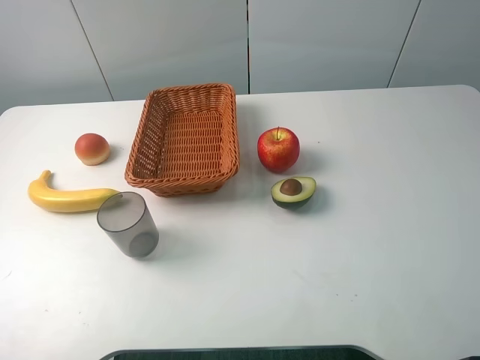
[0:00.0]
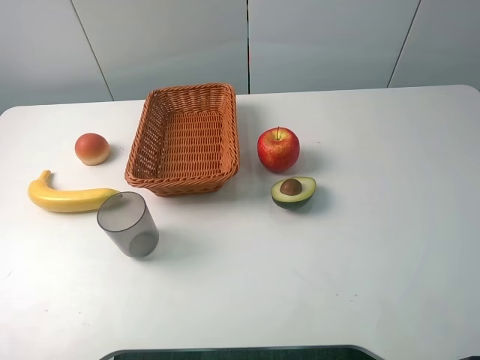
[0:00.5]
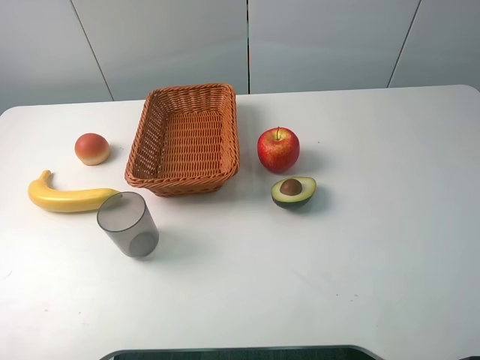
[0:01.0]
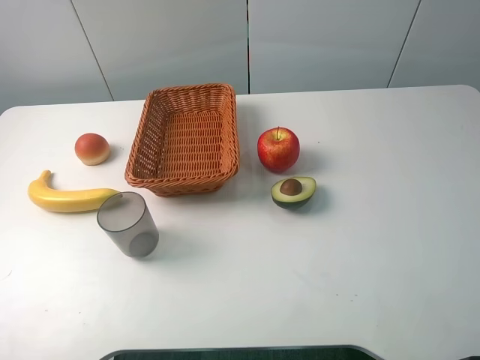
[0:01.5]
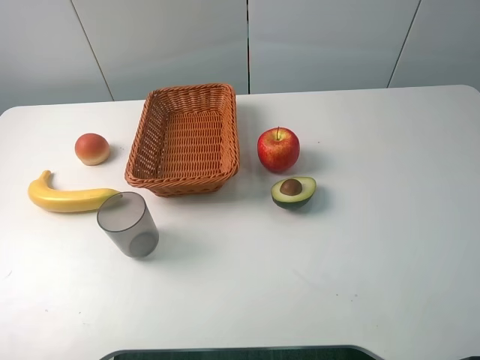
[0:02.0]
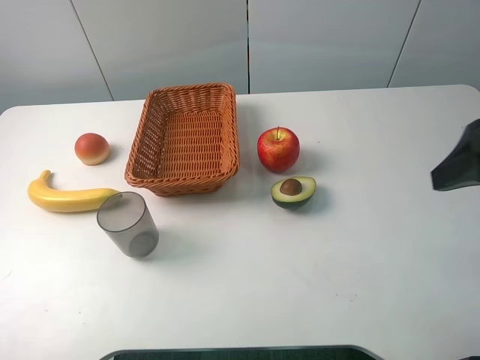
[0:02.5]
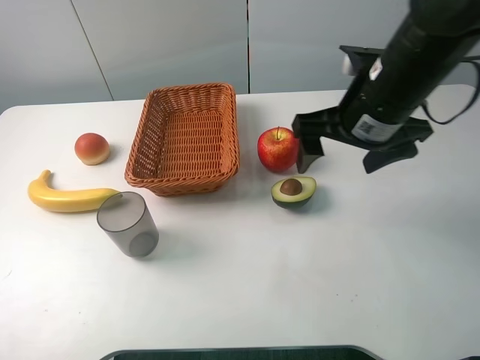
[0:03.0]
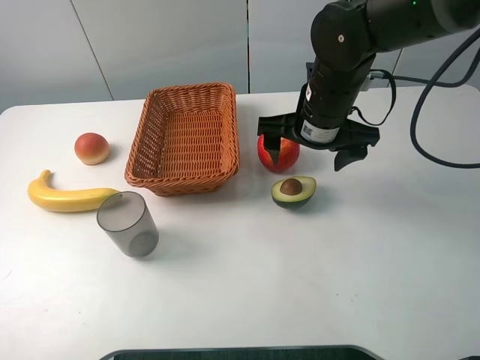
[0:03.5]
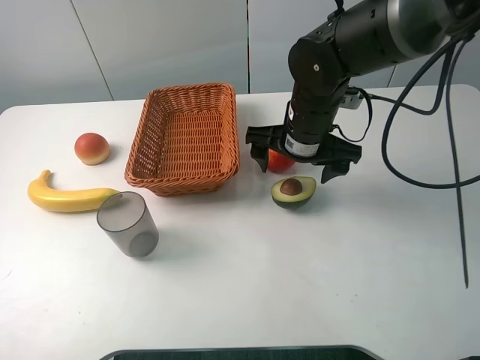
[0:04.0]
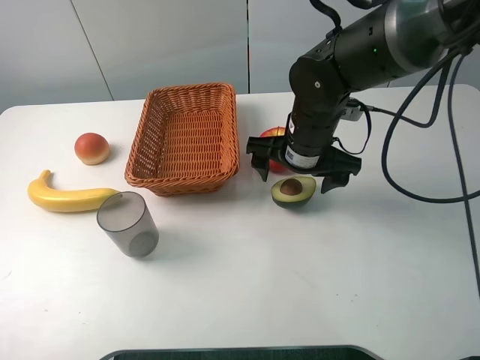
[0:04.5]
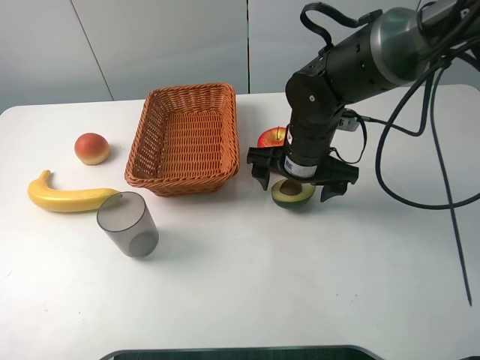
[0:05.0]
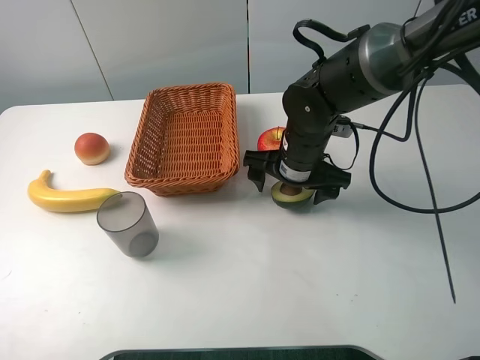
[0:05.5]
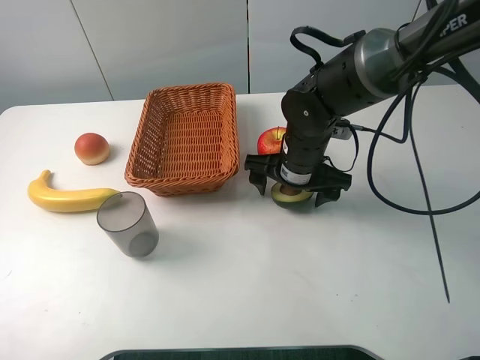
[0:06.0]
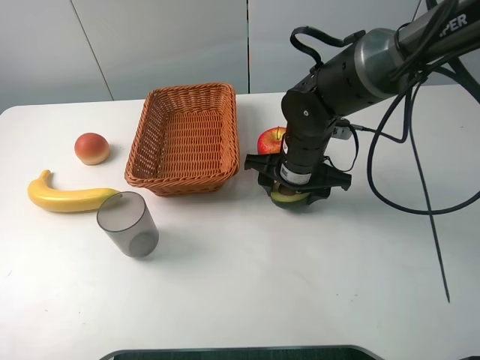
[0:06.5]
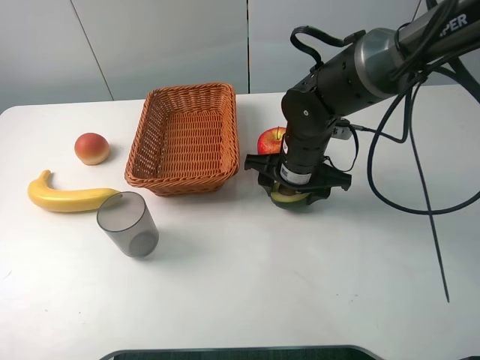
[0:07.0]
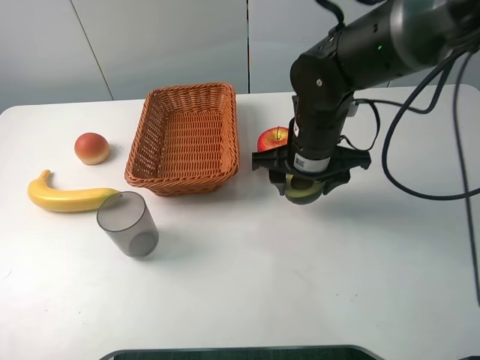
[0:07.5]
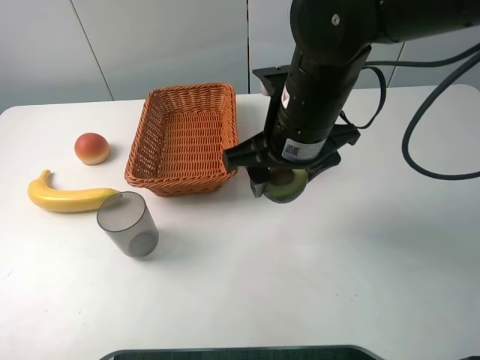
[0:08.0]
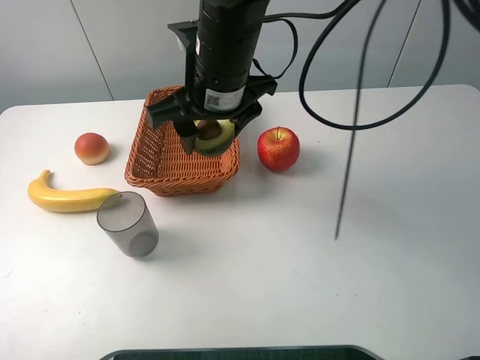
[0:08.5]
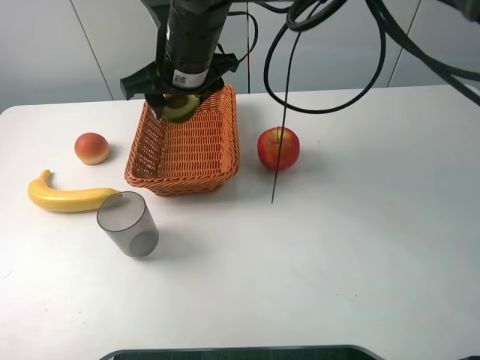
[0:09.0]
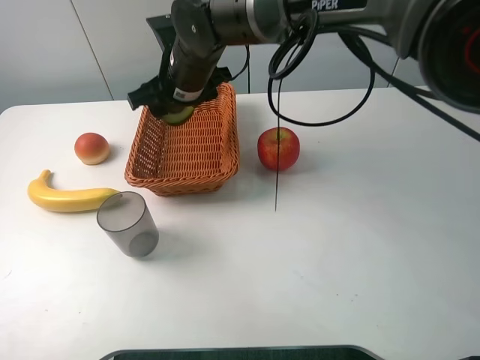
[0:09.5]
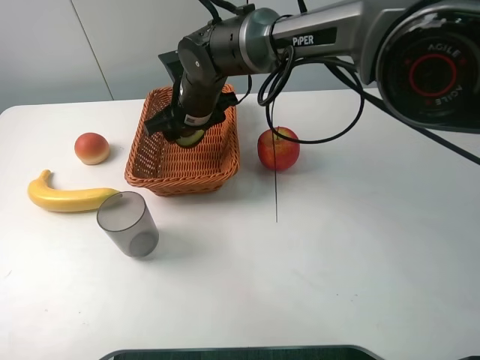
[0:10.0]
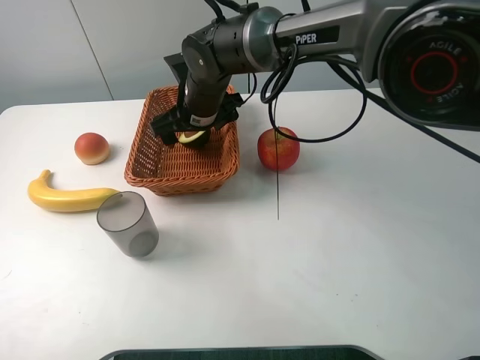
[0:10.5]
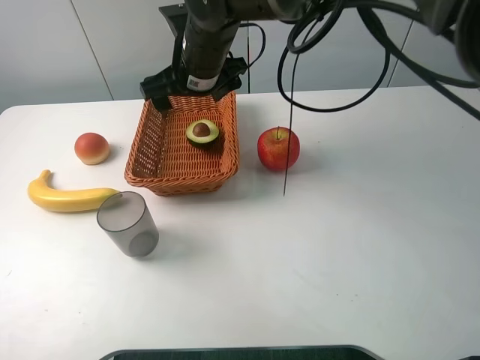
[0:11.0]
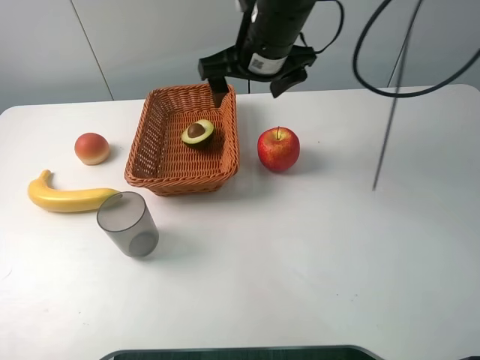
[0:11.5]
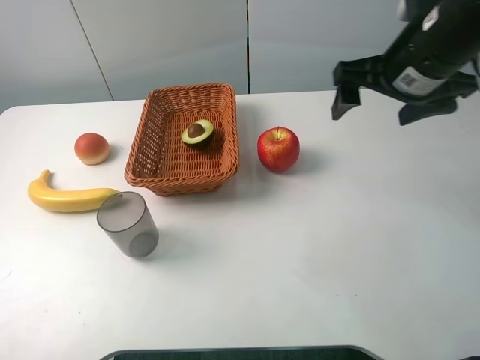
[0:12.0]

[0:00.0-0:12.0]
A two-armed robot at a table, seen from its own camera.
0:02.0 to 0:04.0: The right gripper heads forward, to the left and downward, covering approximately 35 cm.
0:04.0 to 0:06.0: The right gripper moves downward, some 5 cm.
0:06.0 to 0:08.0: The right gripper shifts roughly 15 cm upward and backward, and closes up.
0:08.0 to 0:10.0: The right gripper heads forward, to the left and downward, covering roughly 20 cm.
0:10.0 to 0:12.0: The right gripper travels to the right and upward by roughly 30 cm, and opens its fingers.

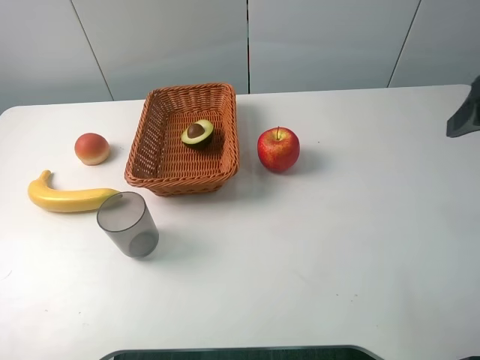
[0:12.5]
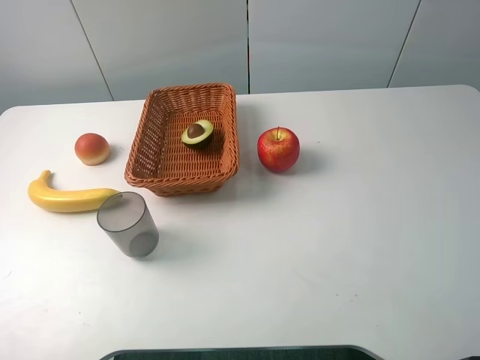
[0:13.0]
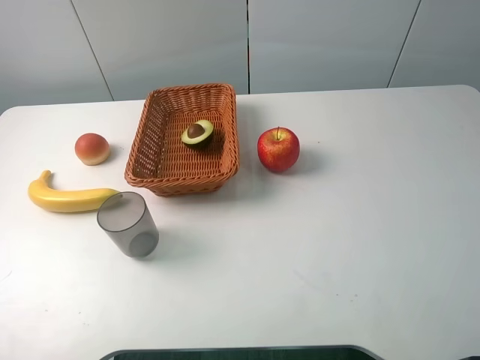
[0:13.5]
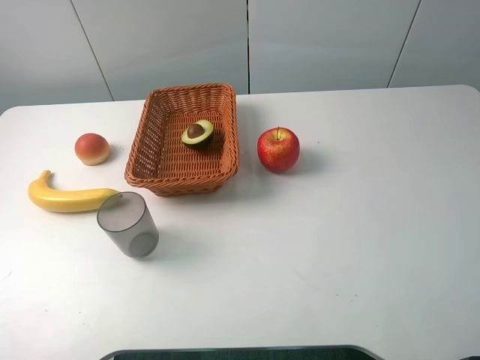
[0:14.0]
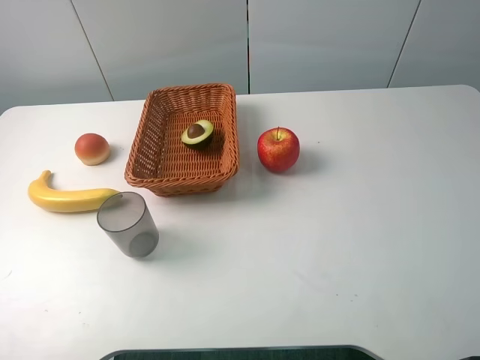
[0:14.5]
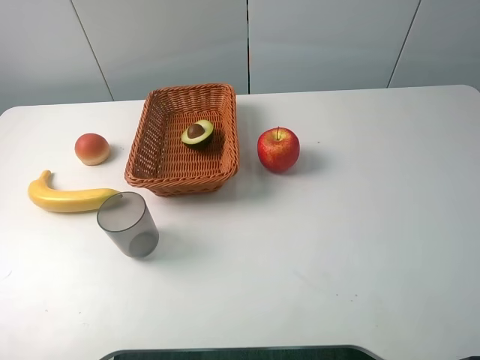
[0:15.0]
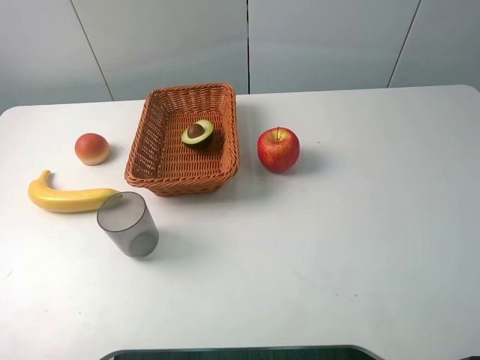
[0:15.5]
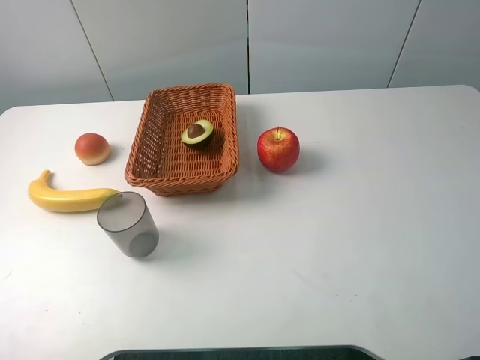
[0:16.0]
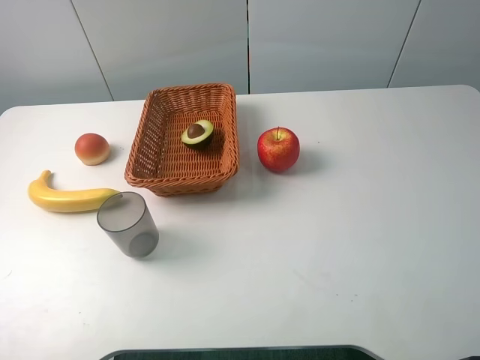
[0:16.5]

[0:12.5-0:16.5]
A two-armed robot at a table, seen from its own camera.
0:12.5 to 0:14.5: The right gripper heads backward, covering about 20 cm.
0:14.5 to 0:16.5: Both grippers stay about where they are.
